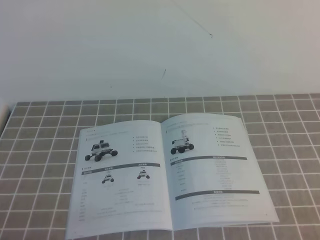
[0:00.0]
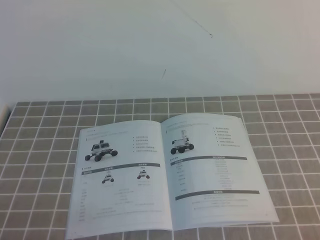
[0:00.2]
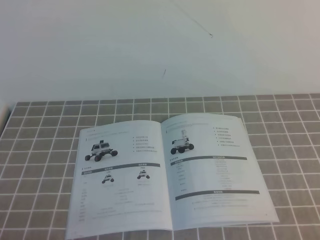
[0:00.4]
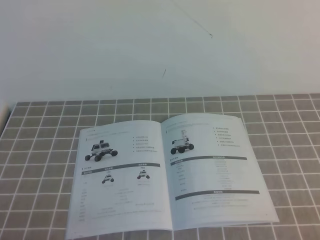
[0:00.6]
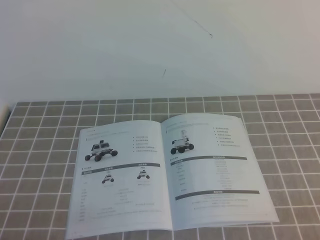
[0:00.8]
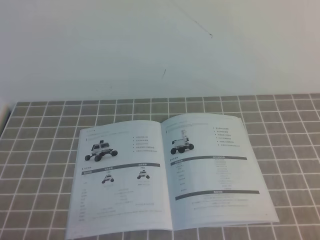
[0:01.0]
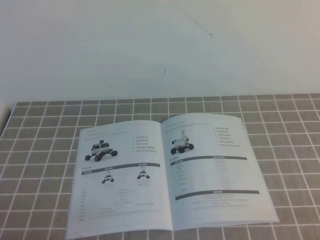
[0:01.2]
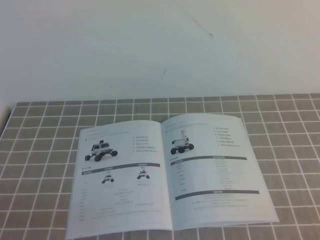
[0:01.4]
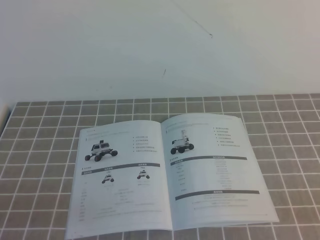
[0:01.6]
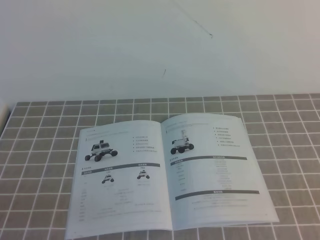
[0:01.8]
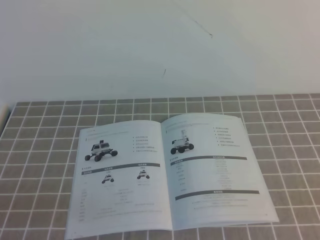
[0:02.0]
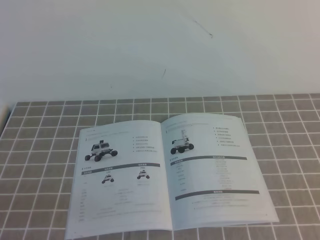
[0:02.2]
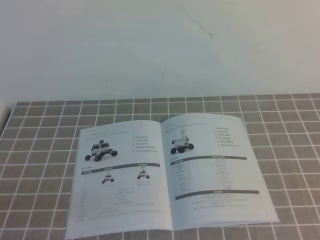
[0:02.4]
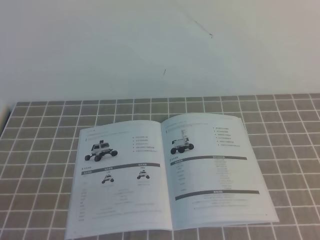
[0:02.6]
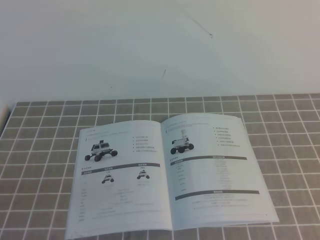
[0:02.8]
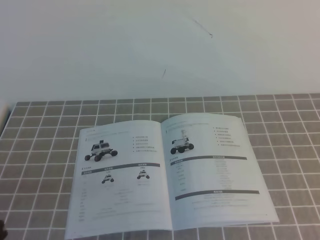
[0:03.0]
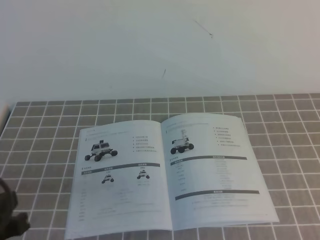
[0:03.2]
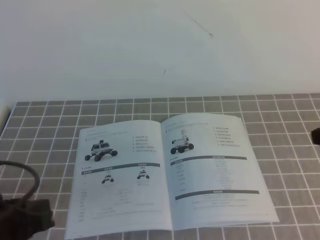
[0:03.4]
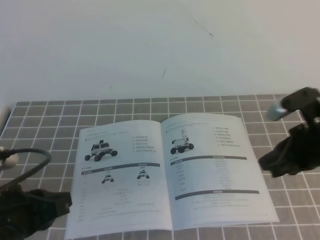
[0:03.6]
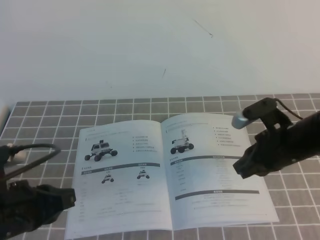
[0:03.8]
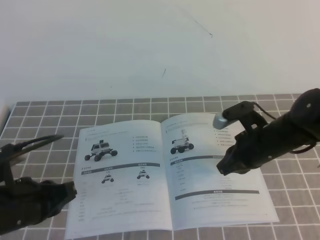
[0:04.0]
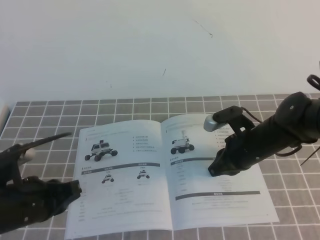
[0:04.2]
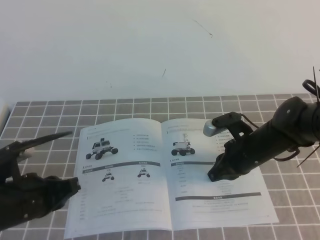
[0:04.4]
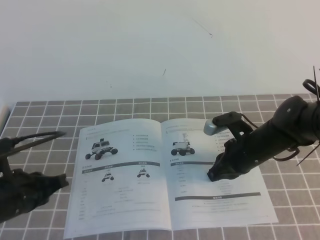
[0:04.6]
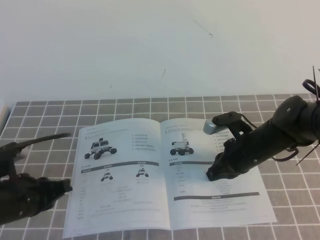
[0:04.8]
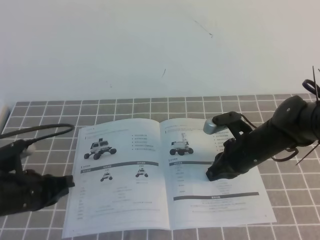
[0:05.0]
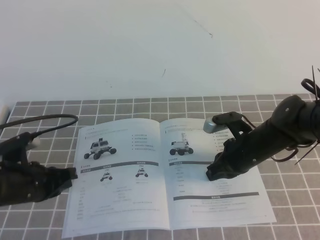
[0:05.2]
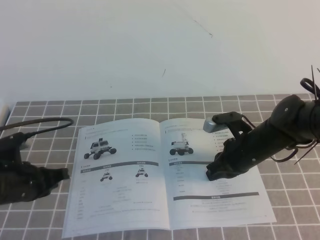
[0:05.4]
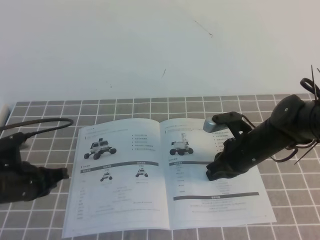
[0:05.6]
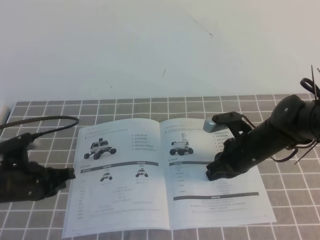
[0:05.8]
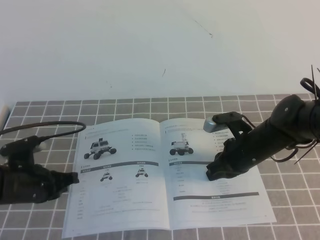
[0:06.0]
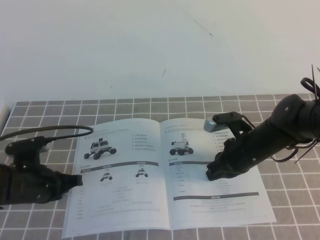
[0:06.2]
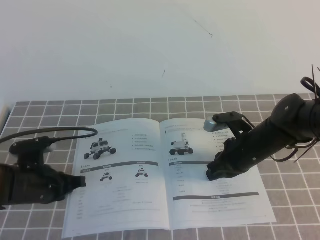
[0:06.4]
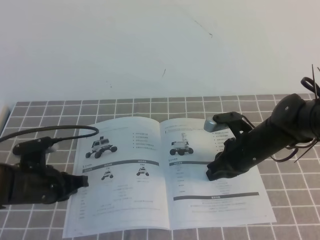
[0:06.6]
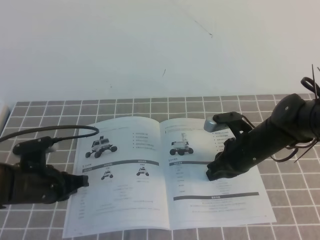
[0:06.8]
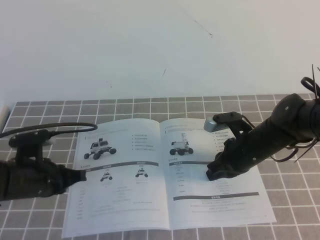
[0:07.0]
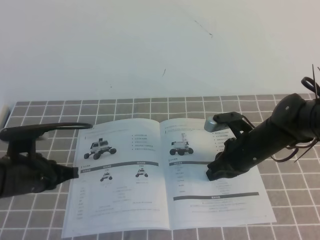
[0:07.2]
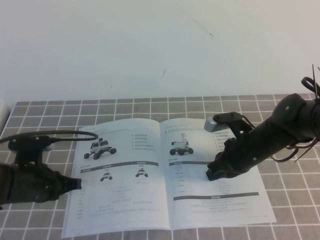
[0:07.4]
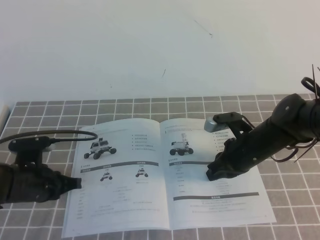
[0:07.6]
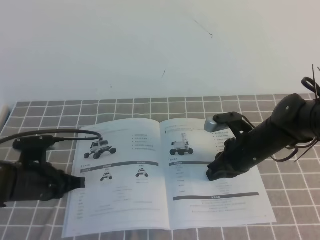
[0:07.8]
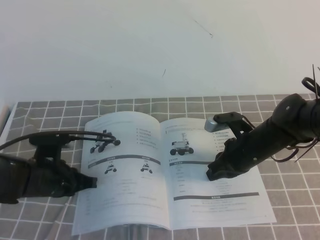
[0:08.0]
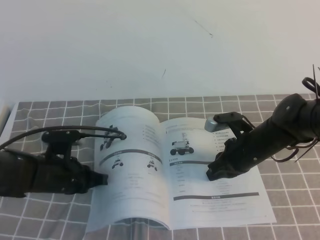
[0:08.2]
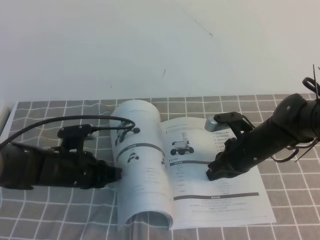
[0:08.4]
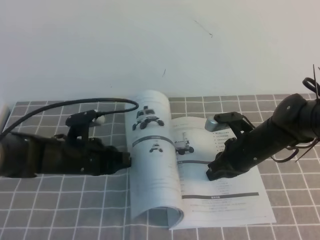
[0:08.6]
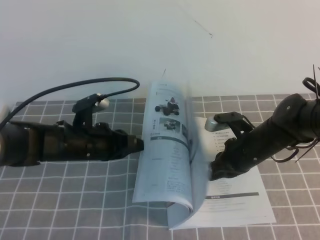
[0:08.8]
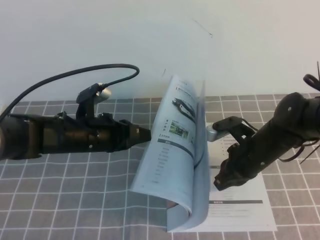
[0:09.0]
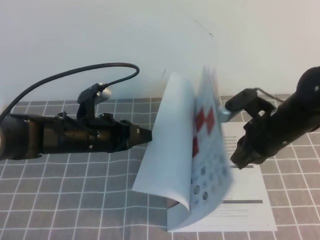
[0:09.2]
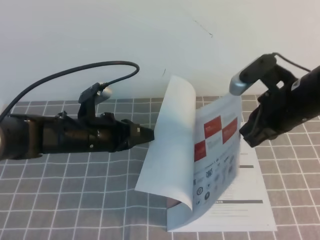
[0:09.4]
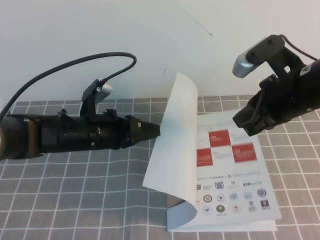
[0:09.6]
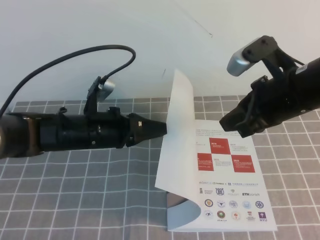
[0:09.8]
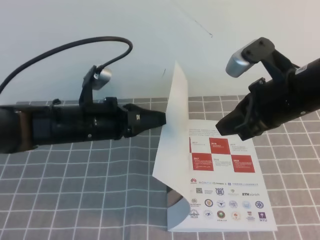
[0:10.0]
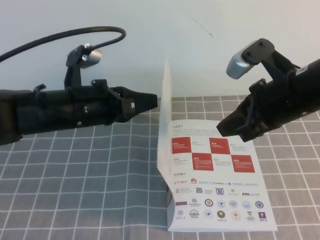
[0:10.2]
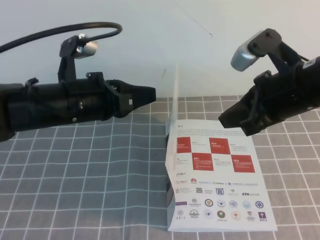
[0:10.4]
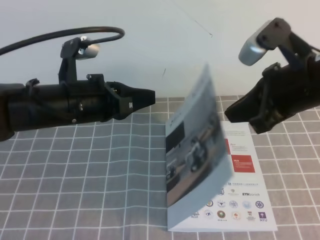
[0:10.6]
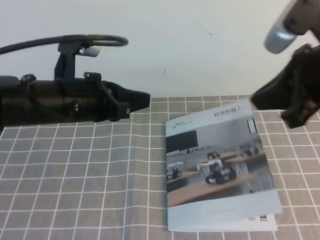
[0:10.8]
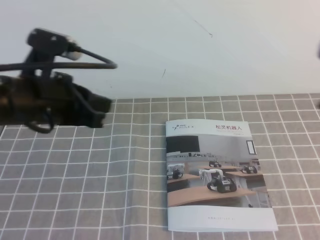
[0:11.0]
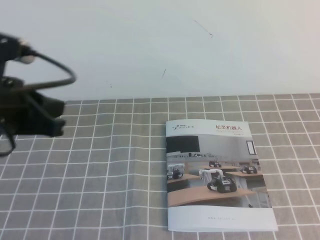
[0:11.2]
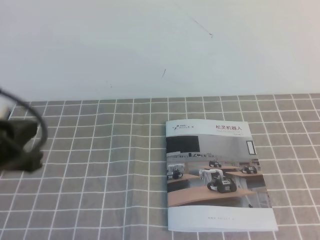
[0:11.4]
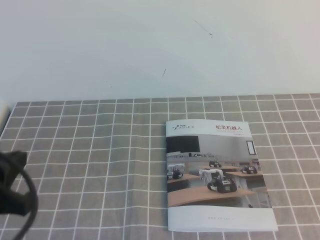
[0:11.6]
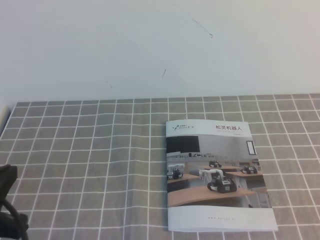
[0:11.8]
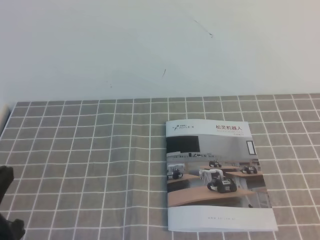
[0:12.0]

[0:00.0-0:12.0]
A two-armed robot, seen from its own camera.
Task of the whole recording: on the grey tablecloth, hold the book with one hand and close it with the other.
0:03.0 to 0:04.4: The right gripper is displaced forward, downward and to the left by approximately 35 cm. The left gripper goes about 15 cm forward and downward.
0:04.4 to 0:06.0: The left gripper travels forward and downward by some 10 cm.
0:06.0 to 0:07.6: There are only small adjustments of the grippers.
0:07.6 to 0:09.0: The left gripper shifts roughly 10 cm to the right and upward.
0:09.0 to 0:10.4: The right gripper goes some 20 cm upward, while the left gripper shifts about 10 cm upward.
0:10.4 to 0:12.0: The left gripper moves backward and to the left, about 20 cm. Meanwhile the right gripper is displaced backward and to the right by some 25 cm.

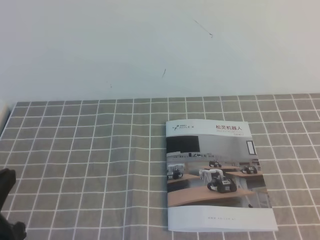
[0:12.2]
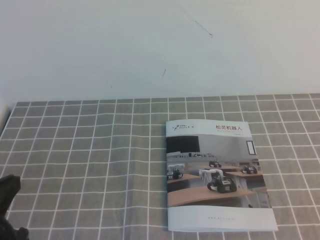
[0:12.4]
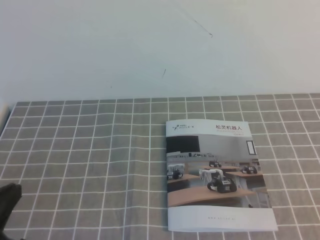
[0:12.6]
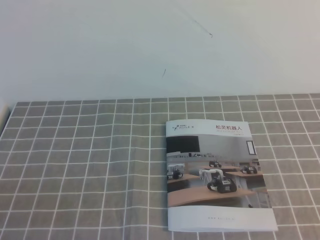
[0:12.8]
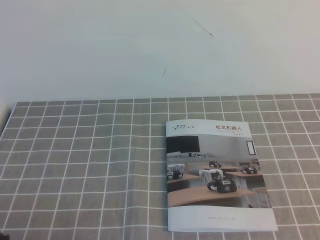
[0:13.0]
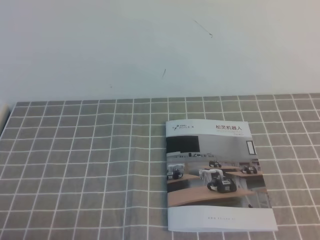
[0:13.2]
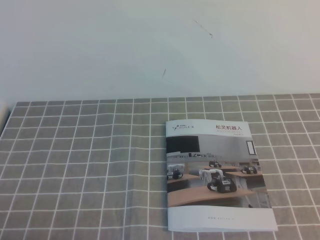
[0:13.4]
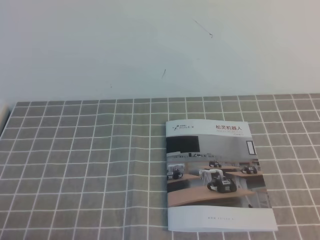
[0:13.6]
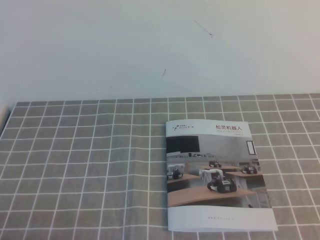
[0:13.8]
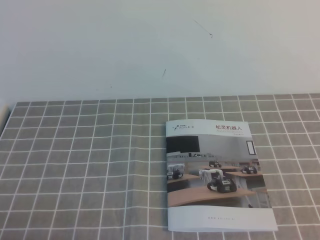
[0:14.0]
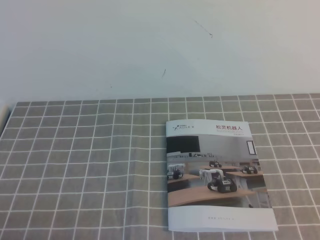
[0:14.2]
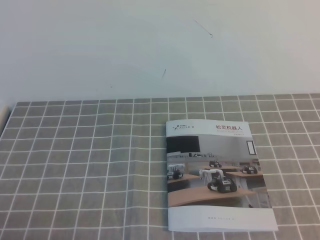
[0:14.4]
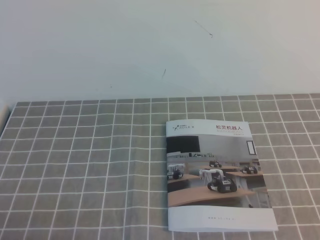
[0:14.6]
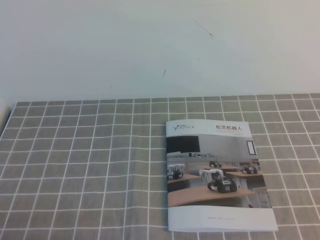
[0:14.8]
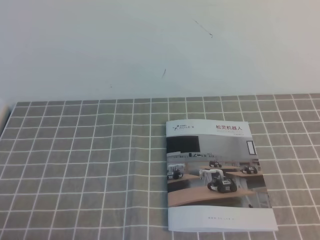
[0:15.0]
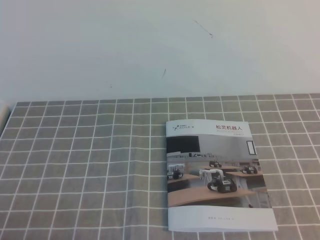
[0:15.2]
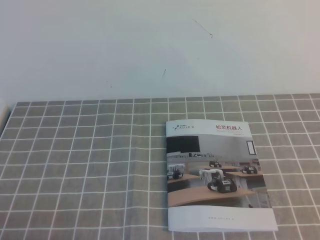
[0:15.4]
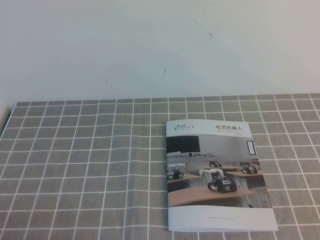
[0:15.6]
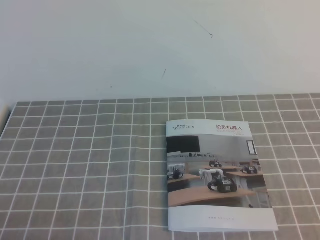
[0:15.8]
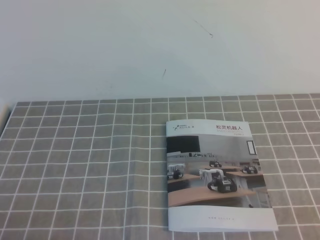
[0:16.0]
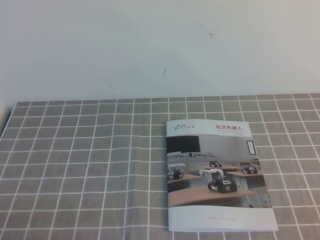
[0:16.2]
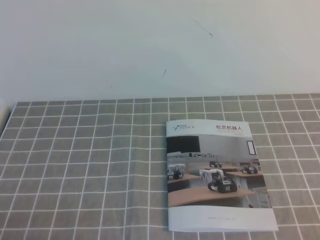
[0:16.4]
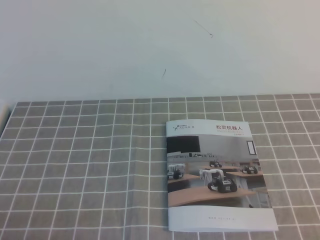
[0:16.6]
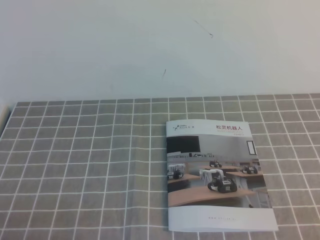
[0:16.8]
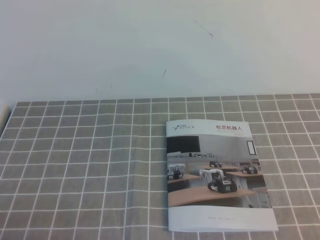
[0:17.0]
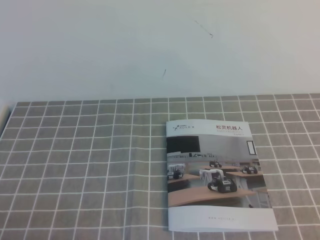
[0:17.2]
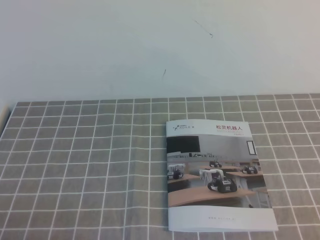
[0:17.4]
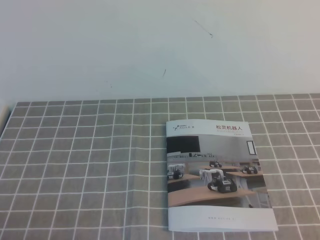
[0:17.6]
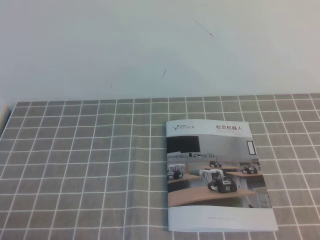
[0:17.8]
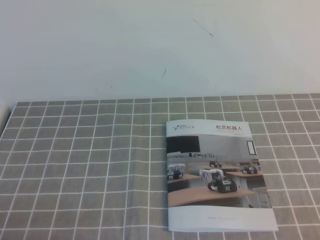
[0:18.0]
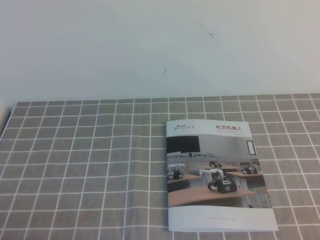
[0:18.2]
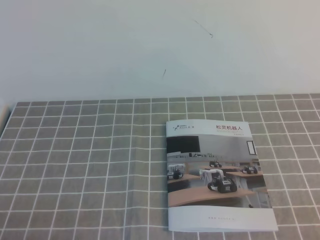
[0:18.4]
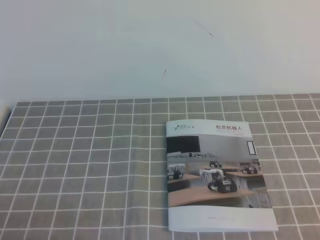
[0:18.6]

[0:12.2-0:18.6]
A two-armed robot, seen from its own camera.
Task of the whole recording: on the grey tablecloth, hold the book with one hand and close it with the other.
0:12.2 to 0:13.8: The left gripper is displaced downward and backward by approximately 10 cm.
0:13.8 to 0:15.4: The two grippers keep their place.
0:17.0 to 0:18.6: The two grippers keep their place.
